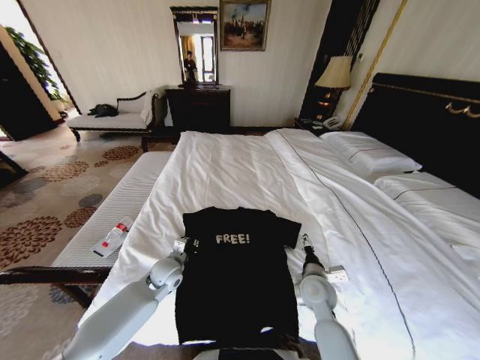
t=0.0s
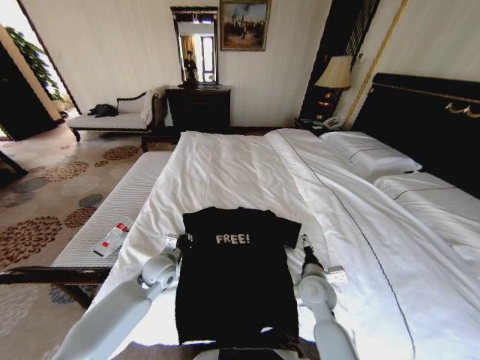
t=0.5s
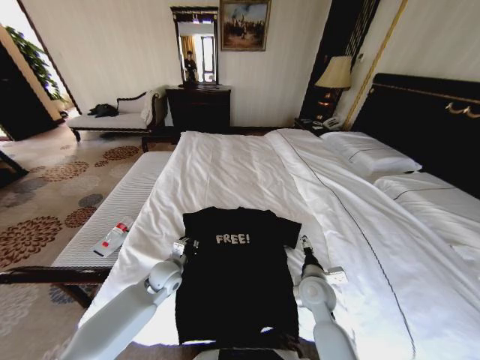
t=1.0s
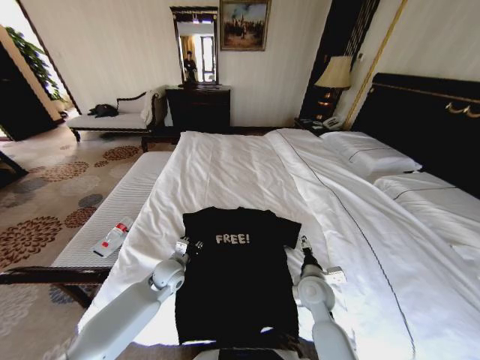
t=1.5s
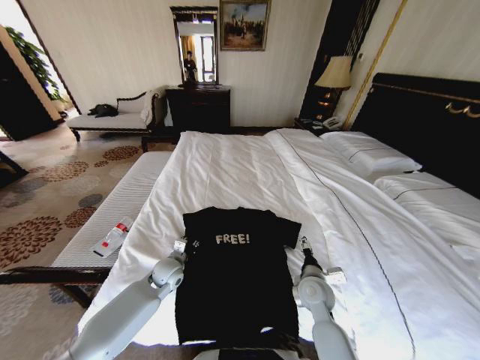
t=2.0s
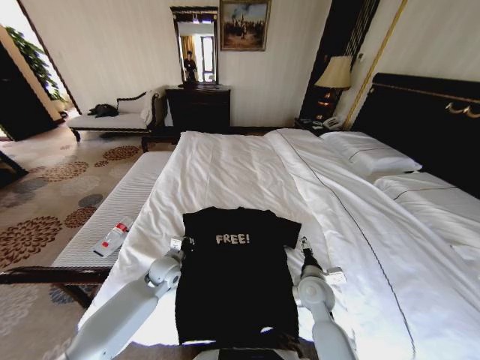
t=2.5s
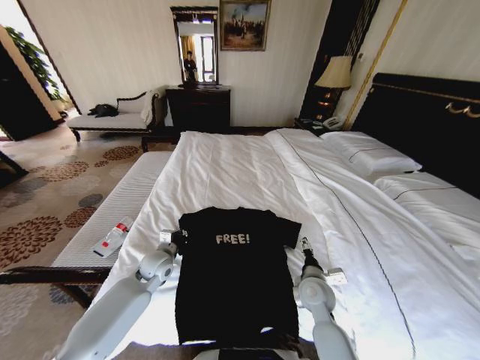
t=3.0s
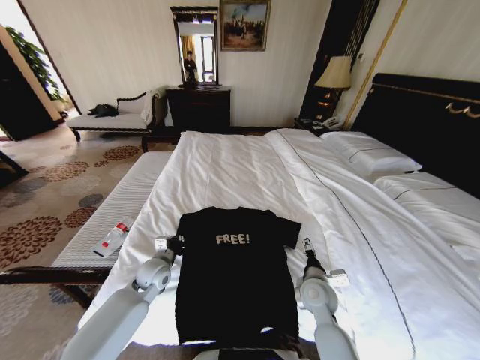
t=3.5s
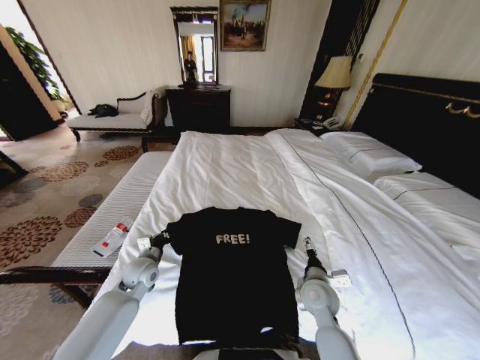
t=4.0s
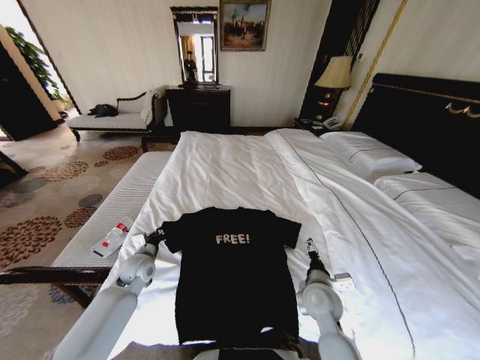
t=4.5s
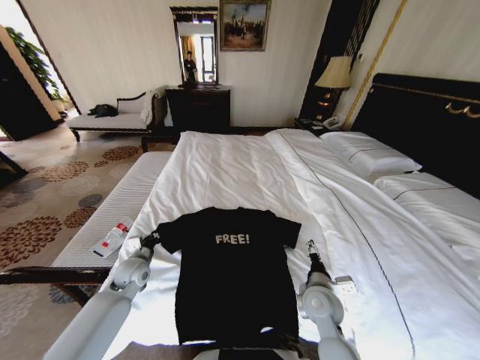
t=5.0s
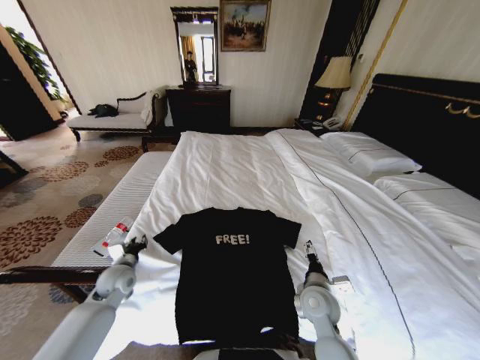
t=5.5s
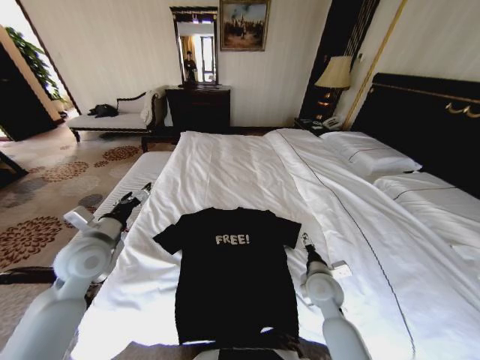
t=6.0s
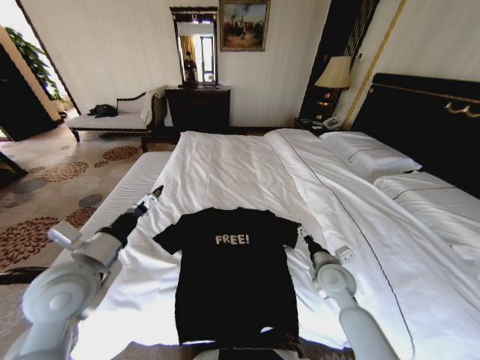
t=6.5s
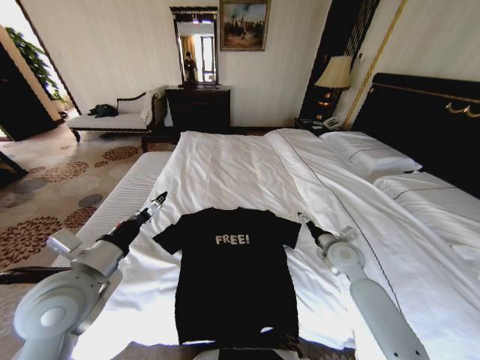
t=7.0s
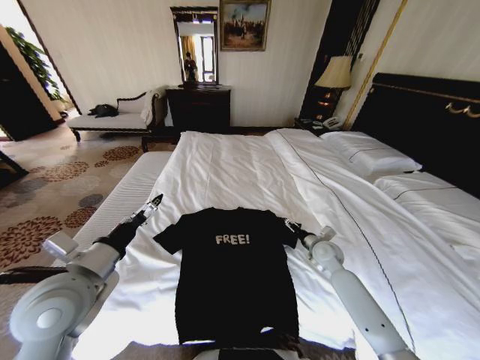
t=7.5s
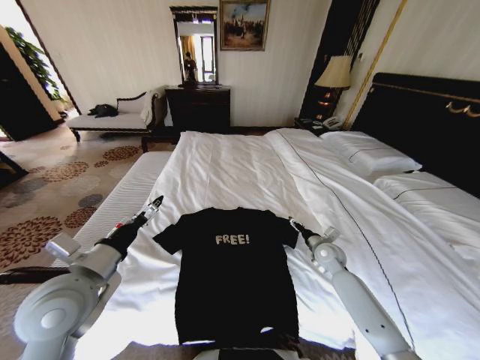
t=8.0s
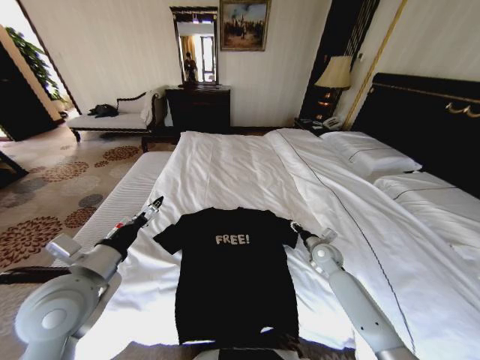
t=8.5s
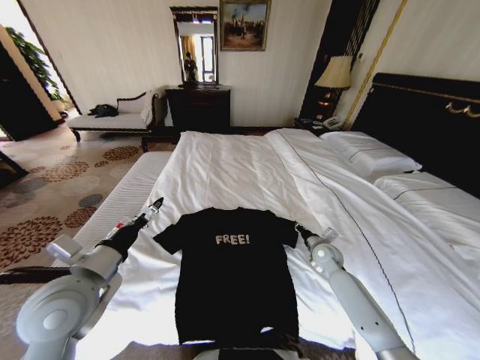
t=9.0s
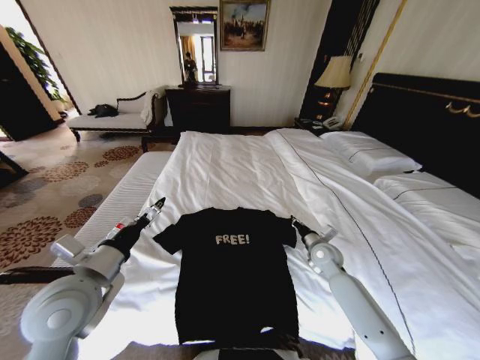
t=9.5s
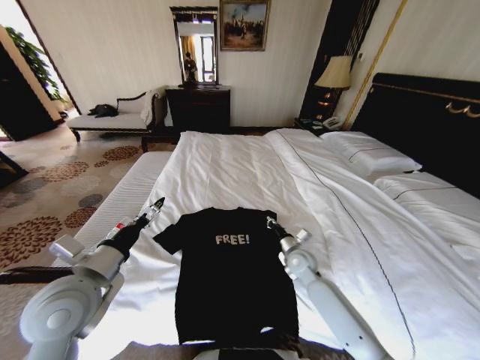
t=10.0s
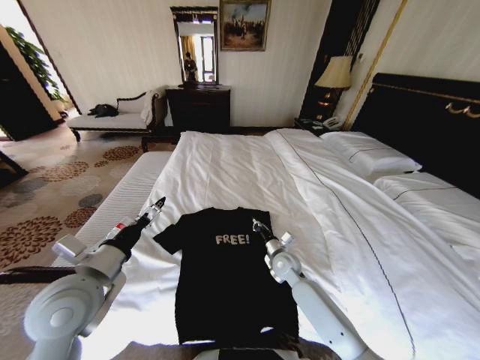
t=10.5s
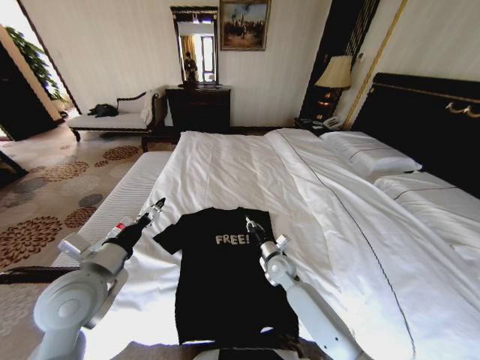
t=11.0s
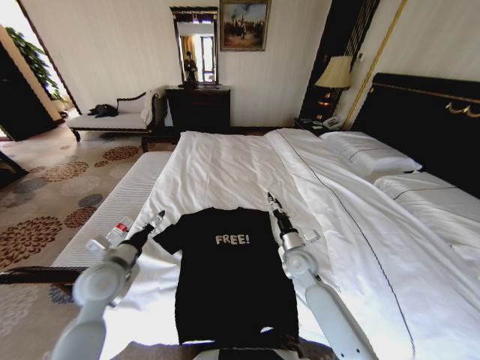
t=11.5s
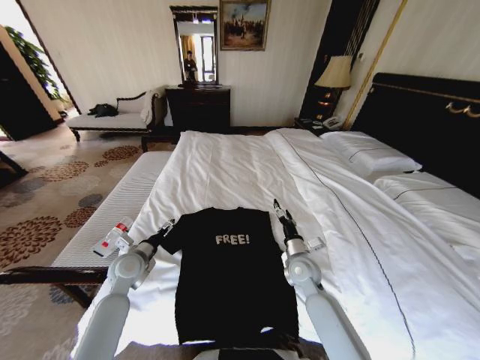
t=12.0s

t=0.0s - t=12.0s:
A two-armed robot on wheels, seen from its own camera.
Task of the whole recording: Fold the clothes on the bed.
t=0.0s - t=2.0s: The grippers move only a little.
t=2.0s - t=4.0s: The left gripper shifts roughly 5 cm to the left.
t=4.0s - t=6.0s: The left gripper is displaced upward by approximately 15 cm, and opens up.
t=6.0s - t=8.0s: The right gripper shifts some 15 cm forward and to the right. Meanwhile the left gripper travels backward by roughly 10 cm.
t=8.0s - t=10.0s: The right gripper goes approximately 10 cm to the left, and closes.
t=10.0s - t=12.0s: The left gripper moves downward and forward, approximately 20 cm, while the right gripper opens its fingers.

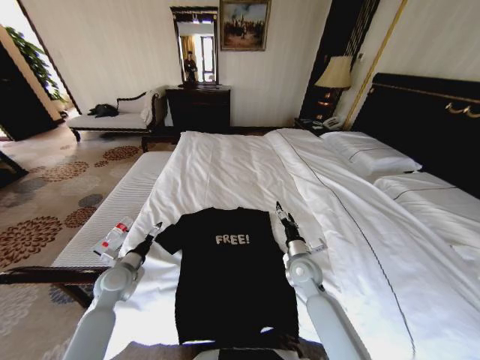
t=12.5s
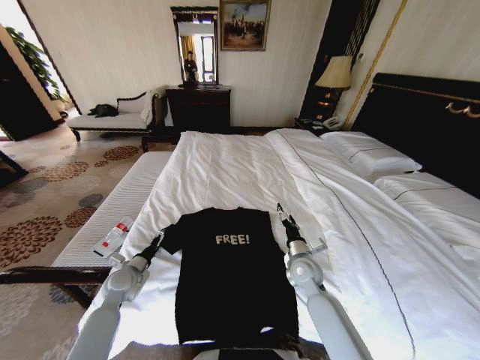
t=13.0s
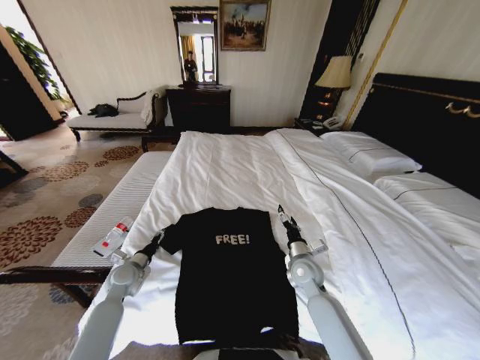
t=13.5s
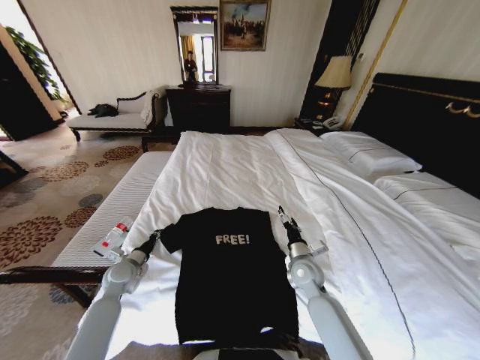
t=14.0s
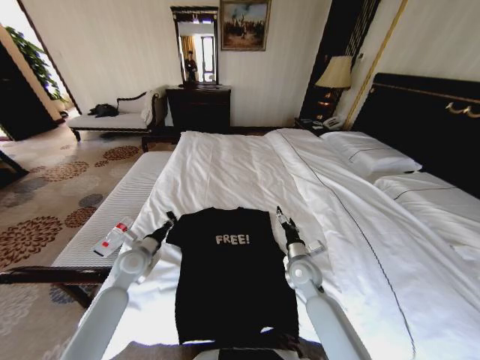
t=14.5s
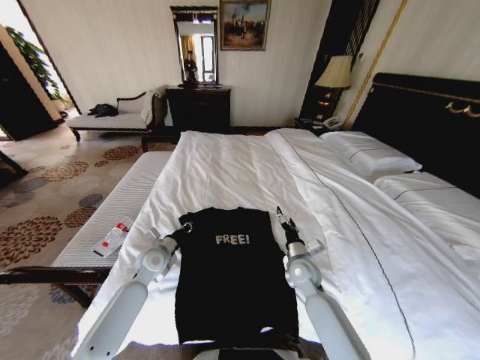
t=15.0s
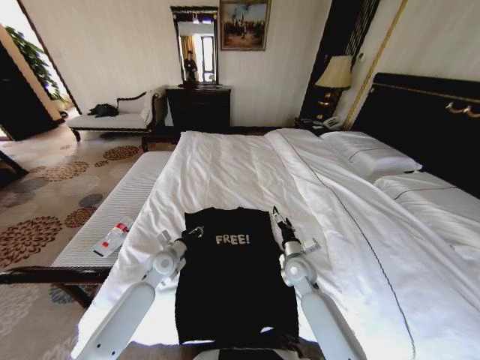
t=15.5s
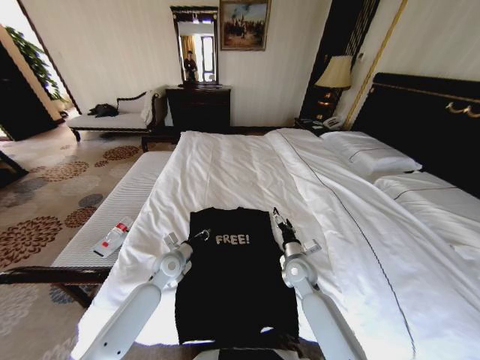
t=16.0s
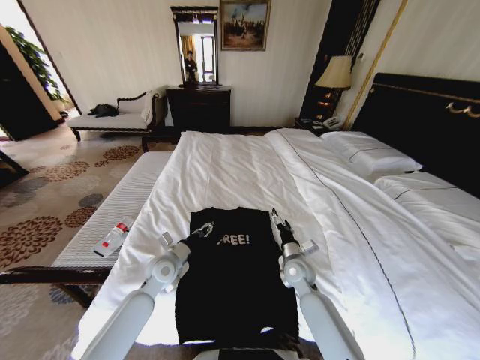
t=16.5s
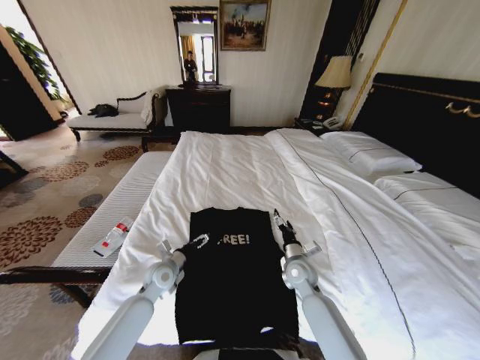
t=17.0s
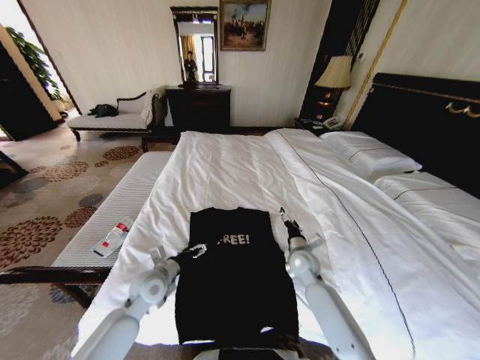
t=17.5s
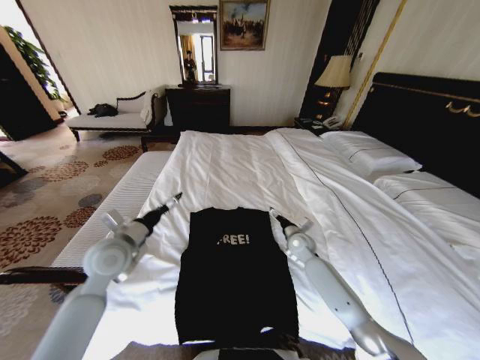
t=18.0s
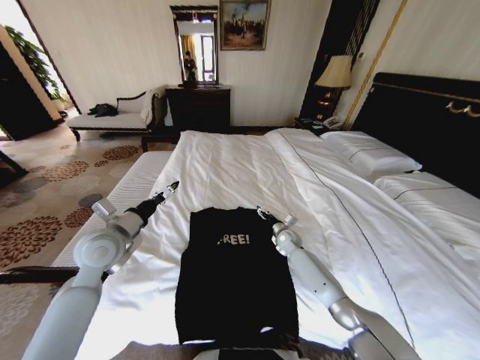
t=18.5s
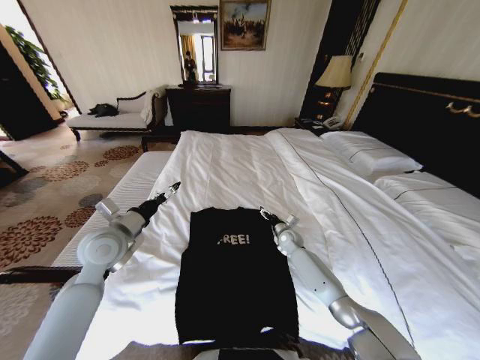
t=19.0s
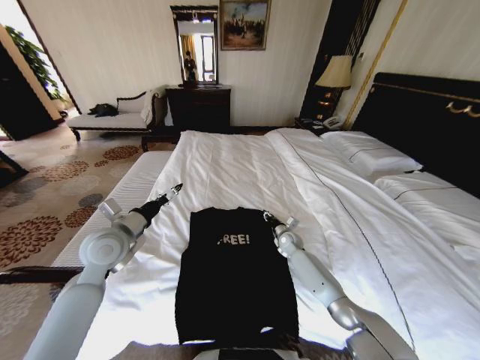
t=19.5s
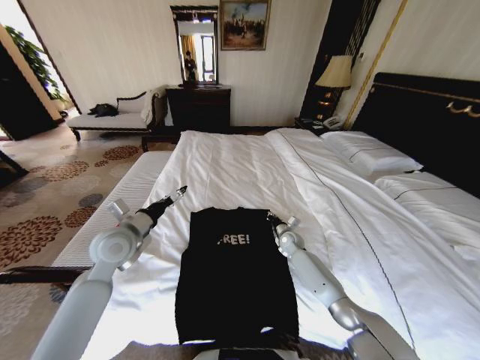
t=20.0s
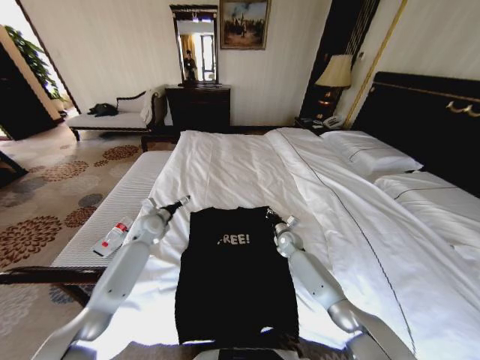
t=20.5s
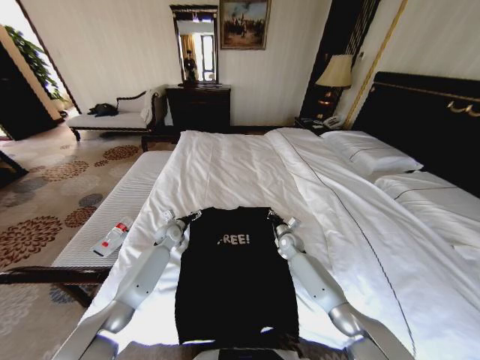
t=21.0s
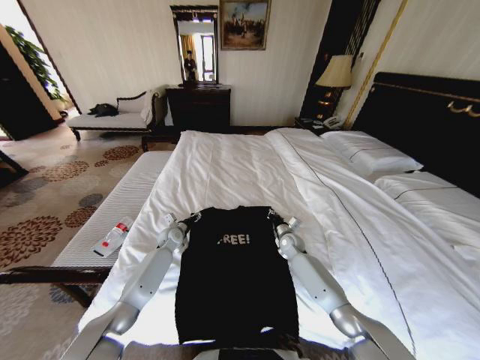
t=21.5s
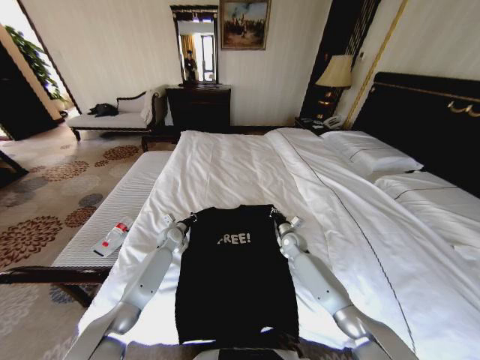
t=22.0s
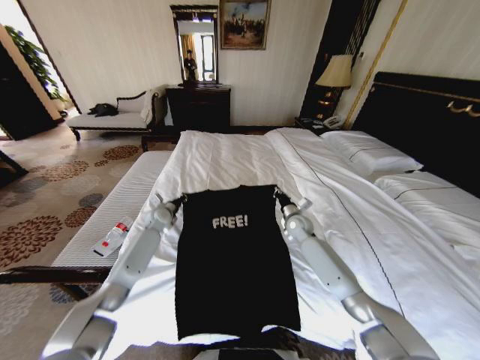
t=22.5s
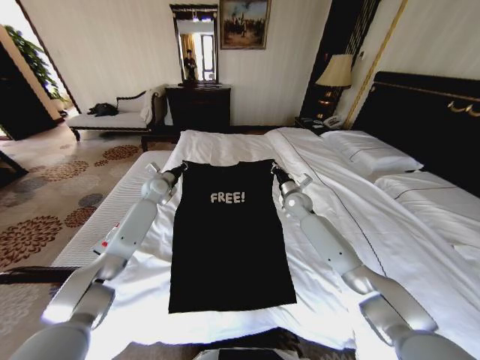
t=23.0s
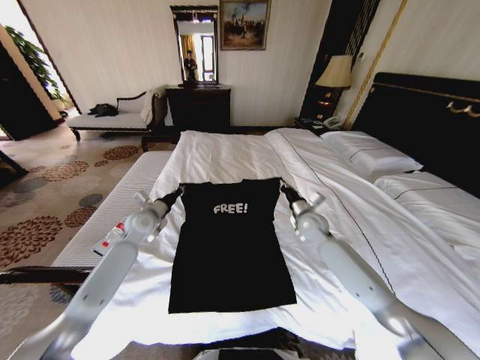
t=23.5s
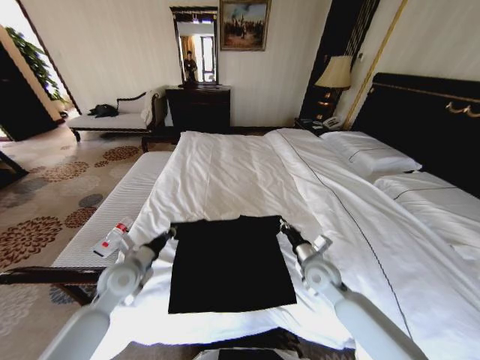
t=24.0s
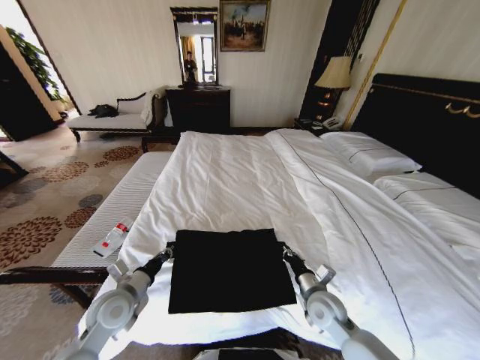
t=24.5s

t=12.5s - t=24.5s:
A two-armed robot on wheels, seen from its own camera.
Task of the whole recording: Fold the clothes on the bed.
t=12.5s - t=14.5s: The left gripper changes place by roughly 5 cm, and closes.
t=14.5s - t=16.5s: The left gripper goes about 10 cm to the right, and opens its fingers.
t=16.5s - t=18.5s: The left gripper shifts approximately 20 cm upward and to the left, and opens, while the right gripper goes approximately 15 cm forward.
t=18.5s - t=20.5s: The right gripper closes up. The left gripper heads forward and downward, covering roughly 20 cm.
t=20.5s - t=22.5s: The right gripper is displaced upward by about 10 cm; the left gripper heads forward, covering roughly 5 cm, travels downward and back again, about 10 cm each way, and closes its fingers.
t=22.5s - t=24.5s: Both grippers move backward, roughly 30 cm.

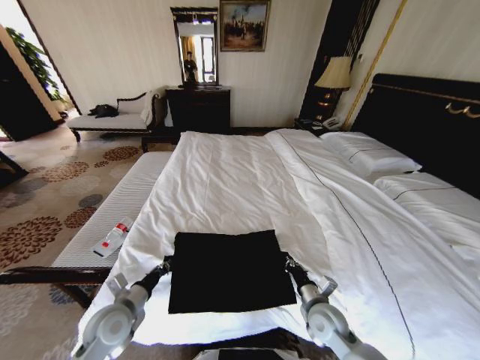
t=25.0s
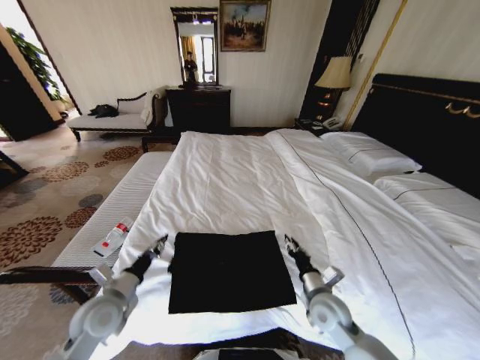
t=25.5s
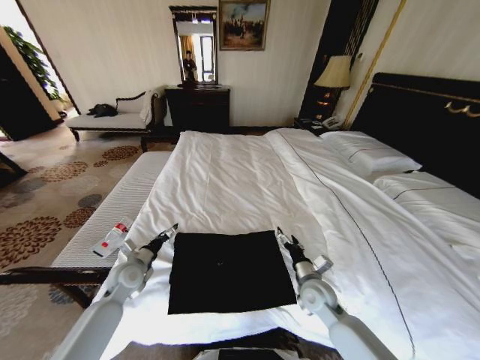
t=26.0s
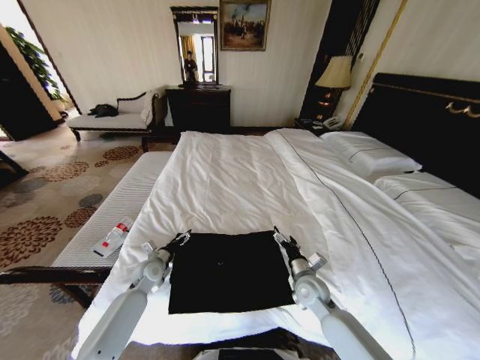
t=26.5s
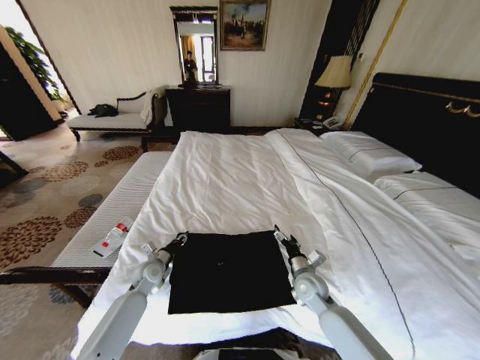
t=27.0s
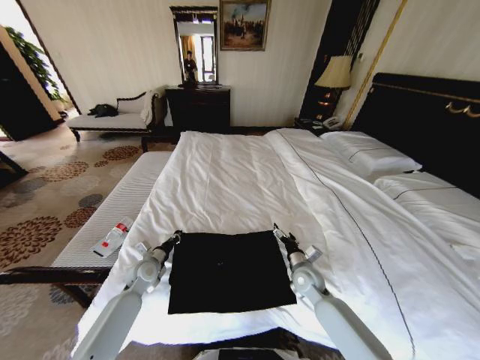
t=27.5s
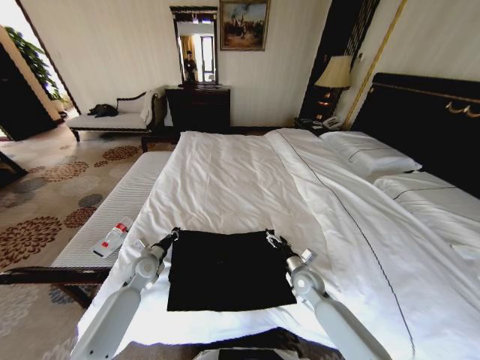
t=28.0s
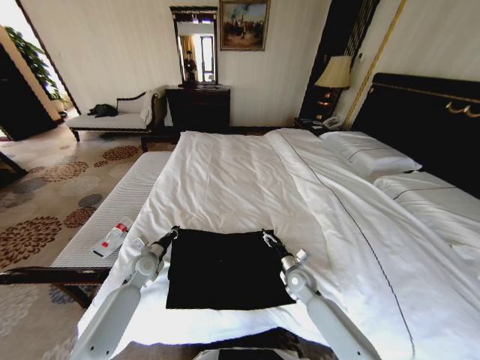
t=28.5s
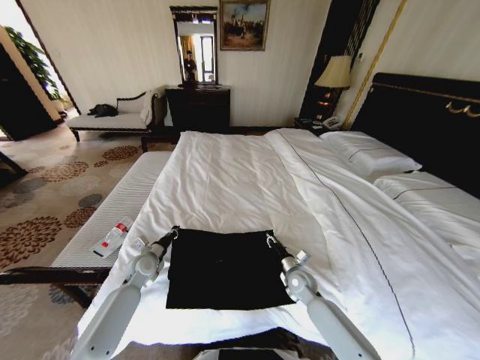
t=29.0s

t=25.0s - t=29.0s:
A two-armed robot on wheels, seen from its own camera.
Task of the whole recording: Fold the clothes on the bed.
t=25.0s - t=27.0s: The left gripper goes some 15 cm forward and downward, and opens its fingers, while the right gripper is displaced forward by some 10 cm, and opens.
t=27.0s - t=29.0s: The right gripper is displaced downward by approximately 5 cm, and closes up. Meanwhile the left gripper closes its fingers.
